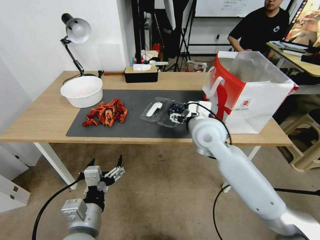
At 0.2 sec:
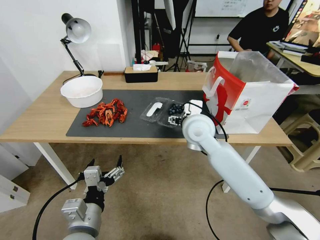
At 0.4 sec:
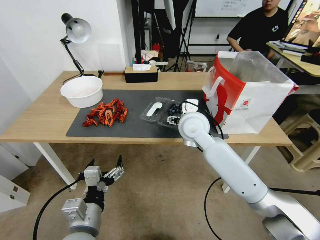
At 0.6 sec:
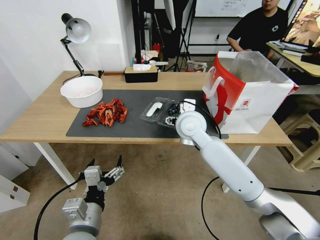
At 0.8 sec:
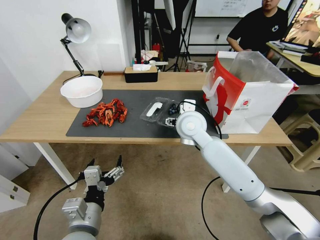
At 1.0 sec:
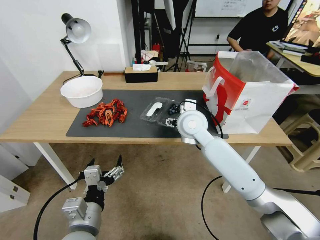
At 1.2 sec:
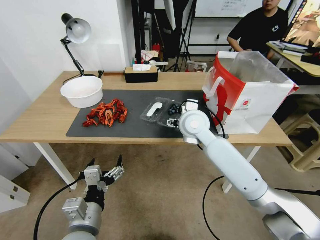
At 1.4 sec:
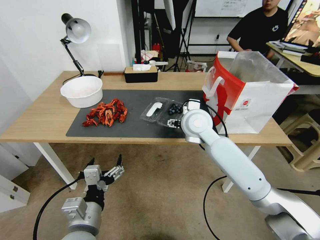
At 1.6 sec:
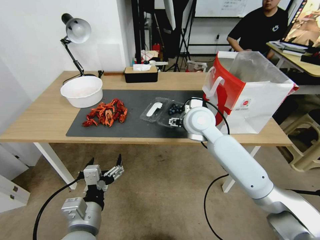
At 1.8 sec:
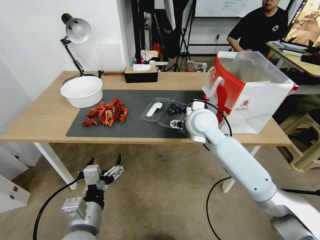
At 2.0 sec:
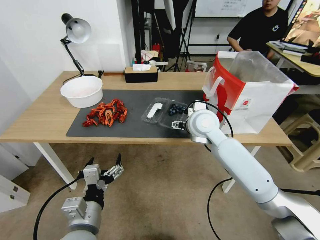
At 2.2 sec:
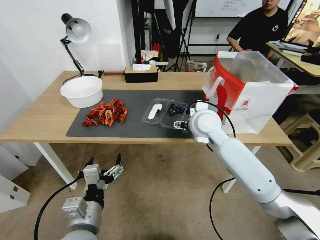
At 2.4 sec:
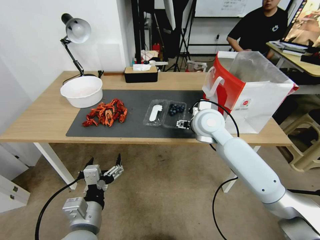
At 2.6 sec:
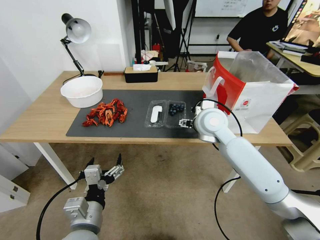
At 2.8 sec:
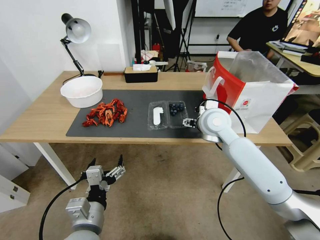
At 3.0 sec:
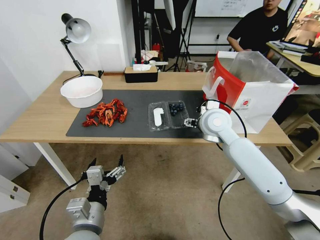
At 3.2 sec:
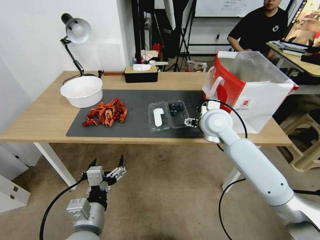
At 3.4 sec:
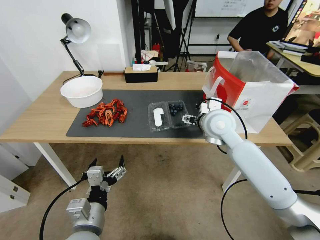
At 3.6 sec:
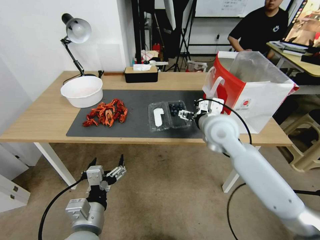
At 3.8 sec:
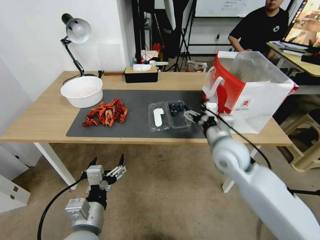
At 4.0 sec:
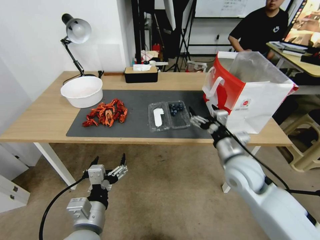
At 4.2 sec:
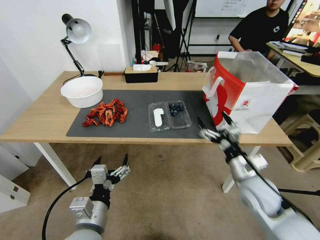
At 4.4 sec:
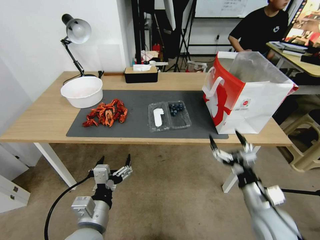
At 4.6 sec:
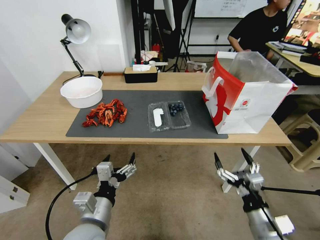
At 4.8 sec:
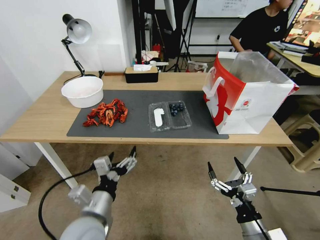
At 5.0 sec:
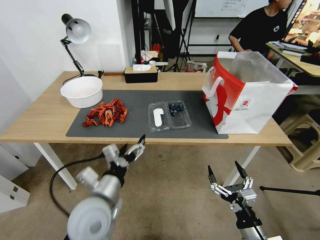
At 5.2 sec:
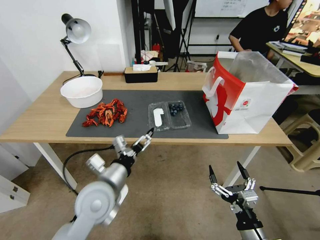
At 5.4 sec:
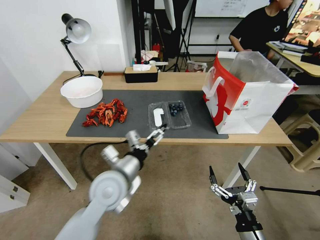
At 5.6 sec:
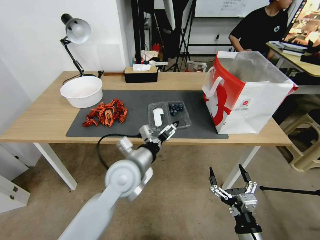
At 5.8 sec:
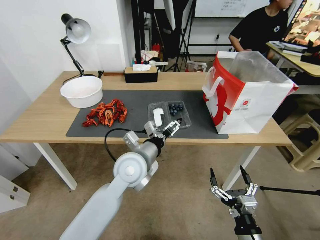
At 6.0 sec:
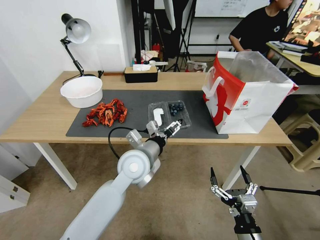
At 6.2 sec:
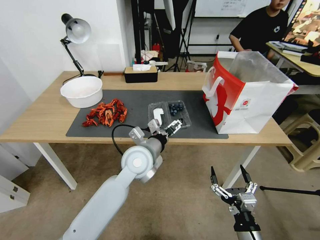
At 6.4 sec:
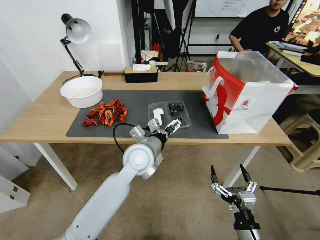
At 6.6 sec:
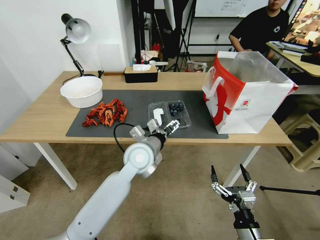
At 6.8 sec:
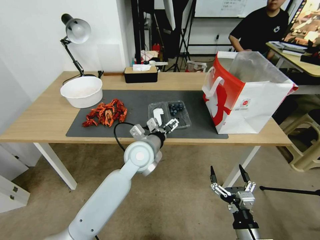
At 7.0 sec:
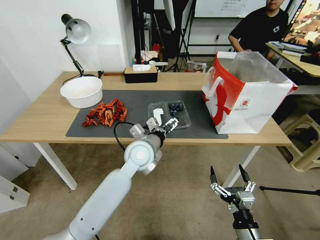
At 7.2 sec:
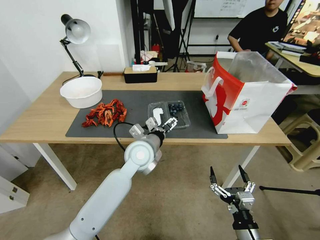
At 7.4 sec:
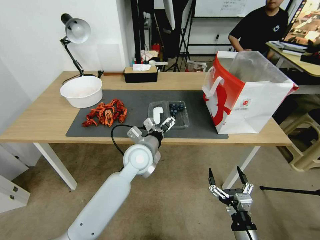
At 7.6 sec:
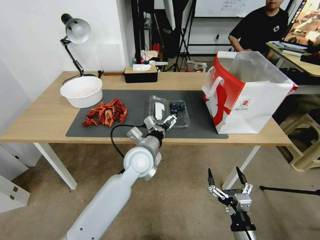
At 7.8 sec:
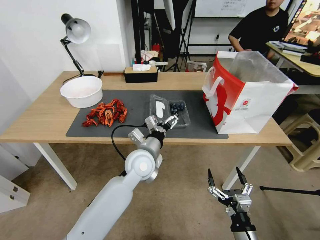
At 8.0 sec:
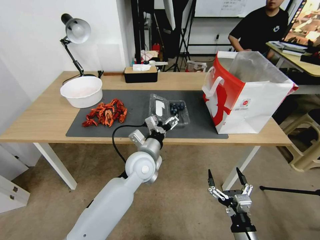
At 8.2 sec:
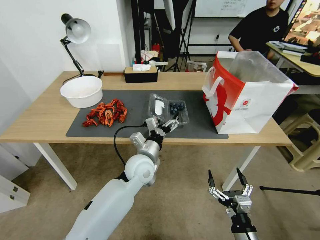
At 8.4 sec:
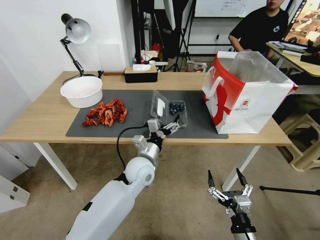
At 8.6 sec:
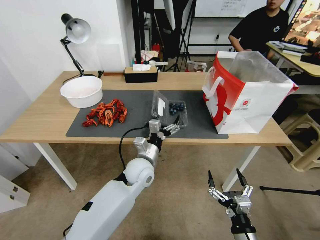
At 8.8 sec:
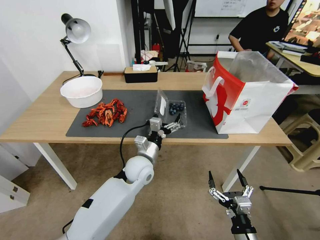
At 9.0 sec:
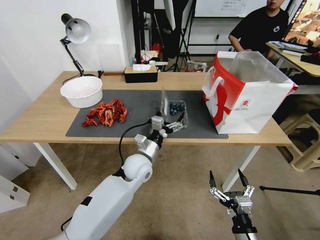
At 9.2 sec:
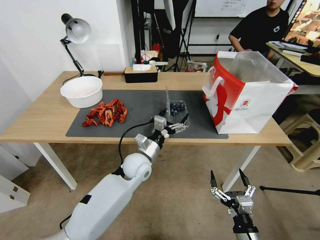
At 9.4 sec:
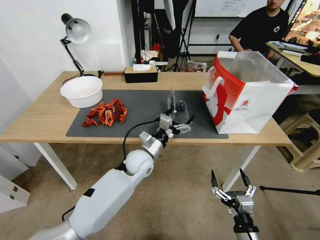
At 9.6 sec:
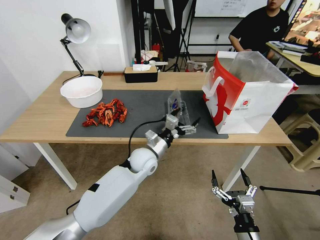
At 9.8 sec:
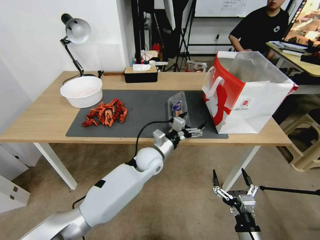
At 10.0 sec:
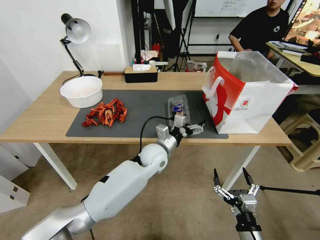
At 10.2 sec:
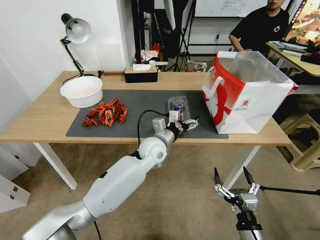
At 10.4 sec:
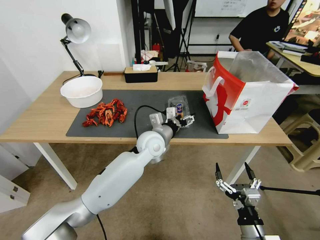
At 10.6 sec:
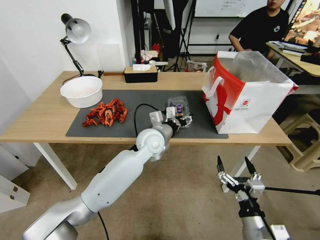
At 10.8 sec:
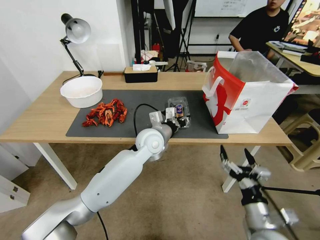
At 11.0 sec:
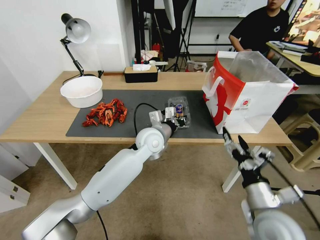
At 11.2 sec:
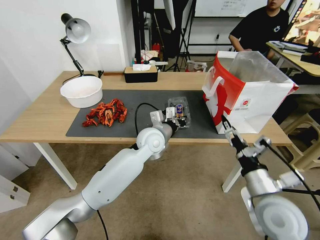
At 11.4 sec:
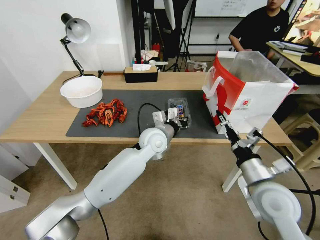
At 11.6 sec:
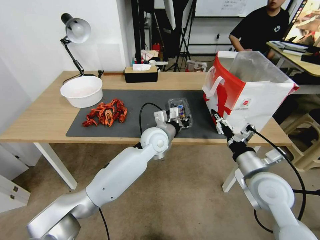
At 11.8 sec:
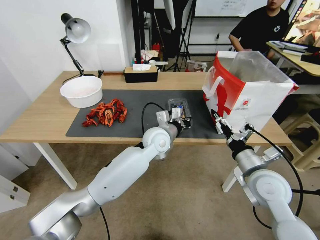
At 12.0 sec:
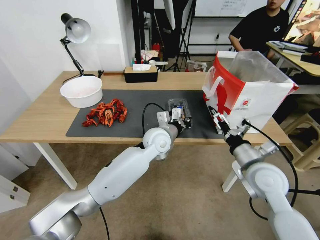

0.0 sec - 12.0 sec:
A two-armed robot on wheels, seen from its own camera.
Task of the whole recording: Close the takeout container lid, then place the container into the takeout bag.
0.0 sec - 1.6 sec: The grippers stay close to where they were, moving slightly.
1.6 sec - 3.0 sec: The right gripper heads to the right, covering approximately 5 cm.
3.0 sec - 4.4 sec: The right gripper shifts some 30 cm backward, downward and to the right.
4.4 sec - 6.0 sec: The left gripper moves forward and to the right, approximately 20 cm. Meanwhile the right gripper is displaced backward and downward by about 15 cm.
6.0 sec - 7.6 sec: The grippers stay close to where they were, moving slightly.
7.6 sec - 9.0 sec: The left gripper travels downward by approximately 5 cm.
9.0 sec - 10.4 sec: The left gripper moves upward and forward, some 10 cm.
10.4 sec - 12.0 sec: The right gripper heads forward and upward, covering roughly 25 cm; the left gripper closes up.

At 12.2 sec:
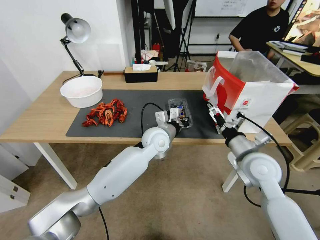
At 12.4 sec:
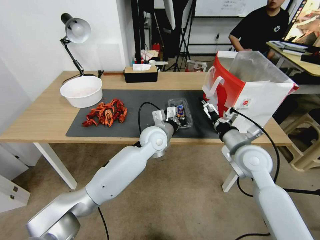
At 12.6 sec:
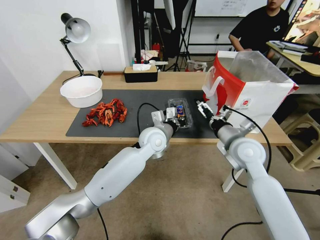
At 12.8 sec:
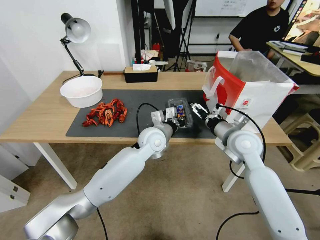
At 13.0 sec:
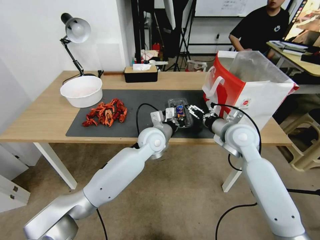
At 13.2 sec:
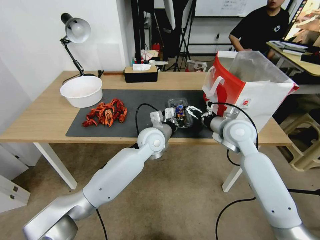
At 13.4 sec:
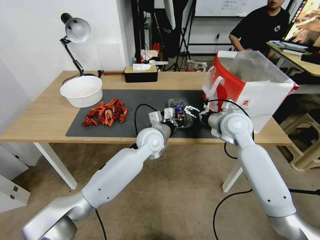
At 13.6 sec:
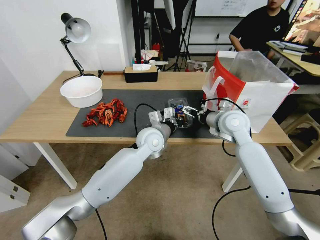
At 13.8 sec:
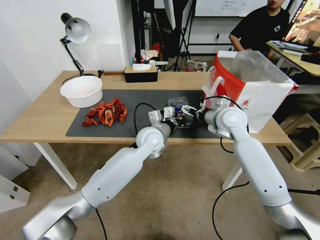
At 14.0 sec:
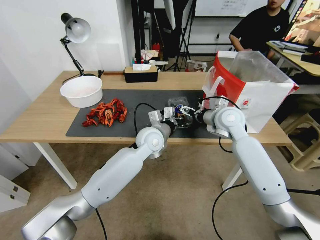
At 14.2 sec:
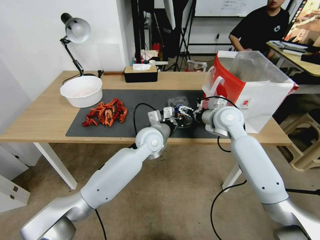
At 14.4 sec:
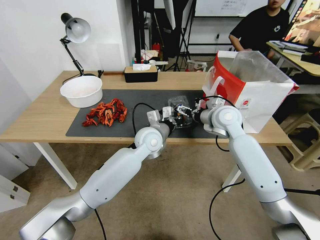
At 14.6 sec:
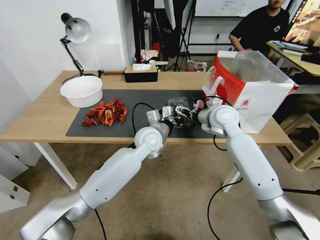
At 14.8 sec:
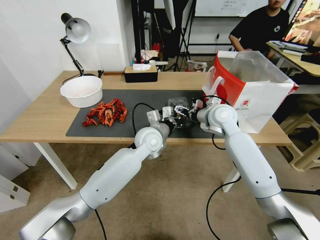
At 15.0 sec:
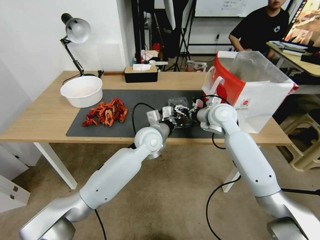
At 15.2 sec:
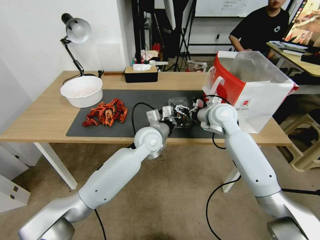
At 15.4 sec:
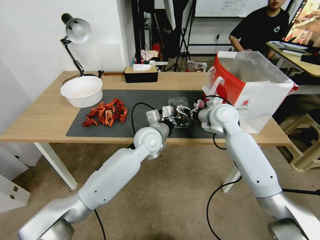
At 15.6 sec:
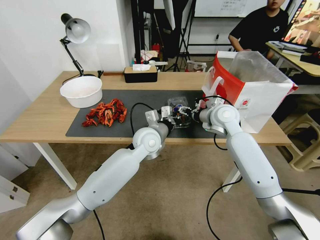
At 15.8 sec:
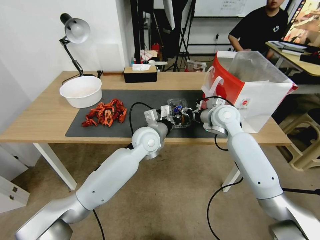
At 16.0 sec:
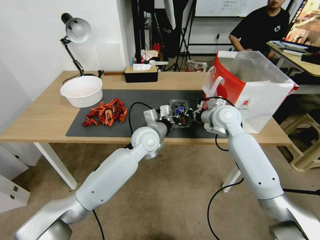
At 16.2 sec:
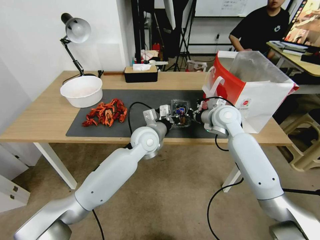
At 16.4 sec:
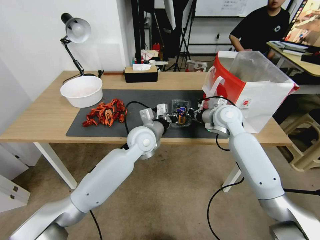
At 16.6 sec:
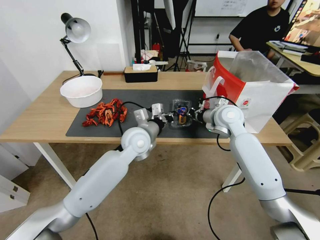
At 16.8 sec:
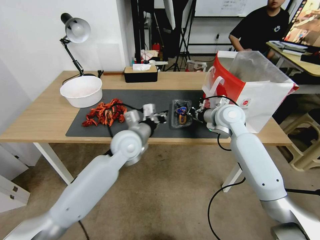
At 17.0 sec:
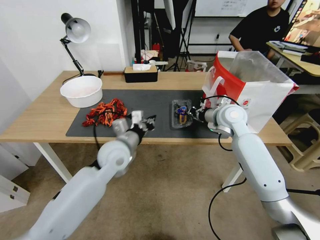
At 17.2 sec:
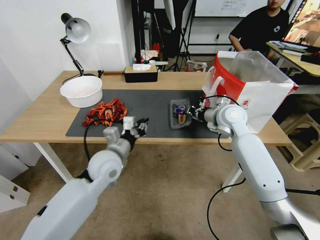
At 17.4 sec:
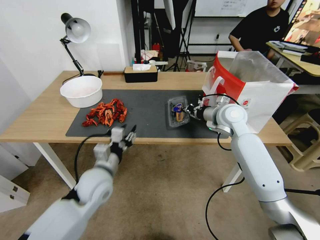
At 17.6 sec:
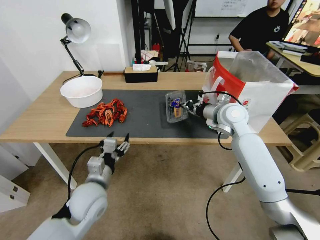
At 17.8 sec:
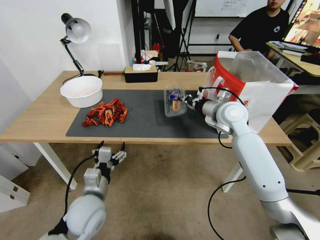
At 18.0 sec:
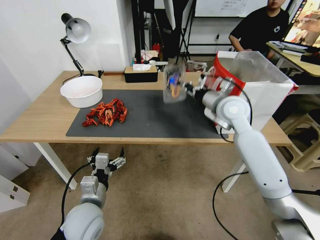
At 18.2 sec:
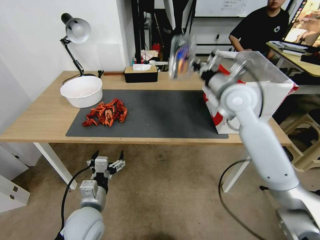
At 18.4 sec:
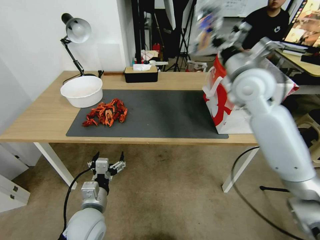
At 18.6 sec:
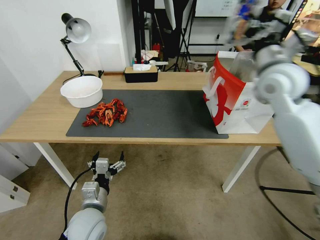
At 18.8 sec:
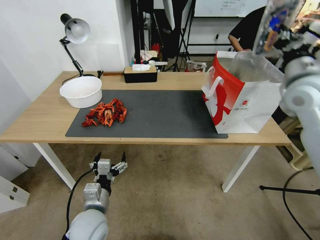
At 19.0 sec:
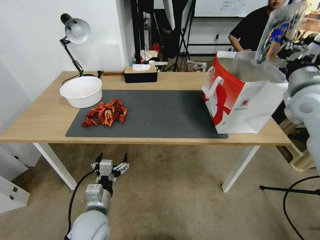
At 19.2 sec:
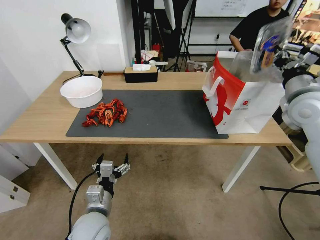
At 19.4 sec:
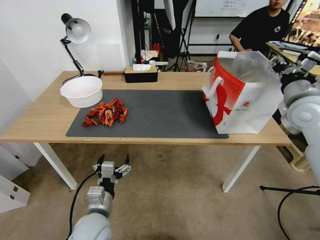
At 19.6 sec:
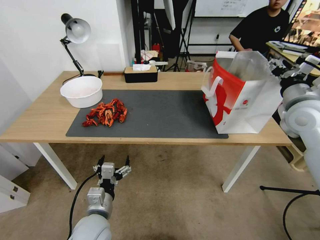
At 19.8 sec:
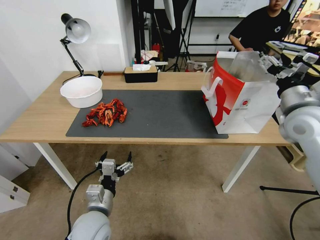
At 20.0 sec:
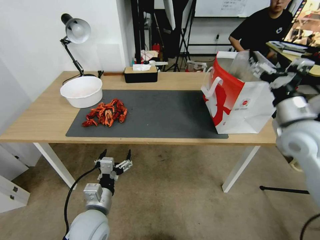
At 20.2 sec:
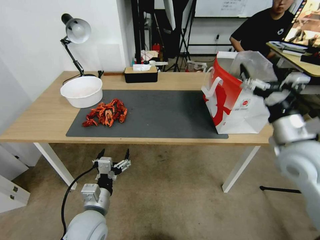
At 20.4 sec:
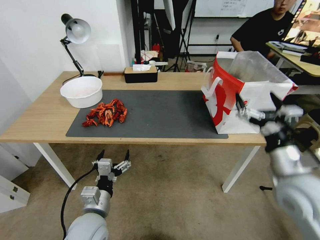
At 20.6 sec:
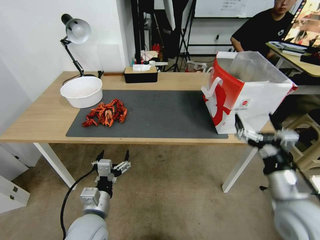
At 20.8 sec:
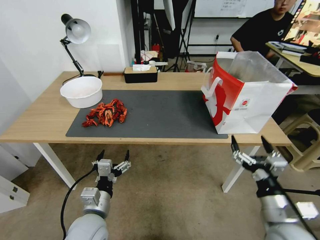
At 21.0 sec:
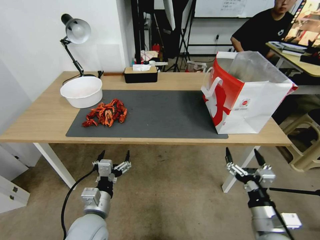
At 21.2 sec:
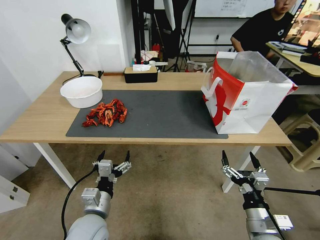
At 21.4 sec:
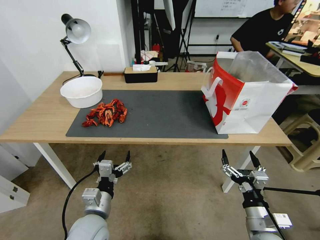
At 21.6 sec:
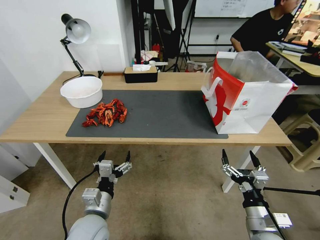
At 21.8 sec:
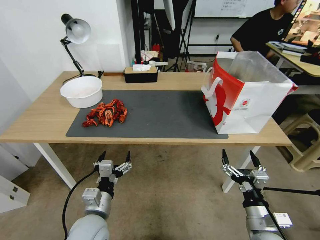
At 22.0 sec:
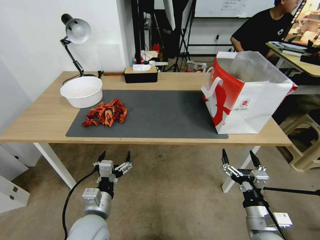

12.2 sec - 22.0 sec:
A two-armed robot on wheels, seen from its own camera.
Task of the whole recording: Close the takeout container lid, then place the container into the takeout bag.
12.2 sec - 13.6 sec: The right gripper heads forward, covering roughly 15 cm.
13.6 sec - 15.0 sec: The grippers stay close to where they were, moving slightly.
15.0 sec - 16.4 sec: The right gripper closes its fingers.
16.4 sec - 17.8 sec: The left gripper shifts about 25 cm backward, to the left and downward, and opens up.
17.8 sec - 19.2 sec: The right gripper moves to the right, upward and backward, some 20 cm.
19.2 sec - 20.6 sec: The right gripper goes approximately 25 cm backward and downward, and opens.
20.6 sec - 22.0 sec: The right gripper goes about 15 cm downward and backward.
